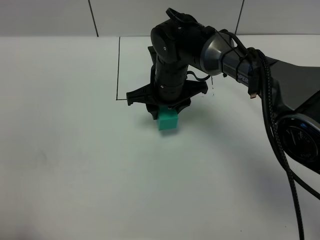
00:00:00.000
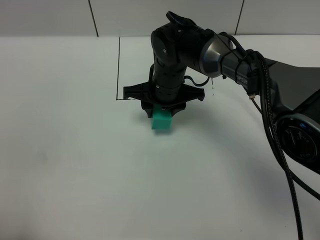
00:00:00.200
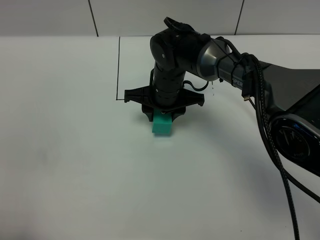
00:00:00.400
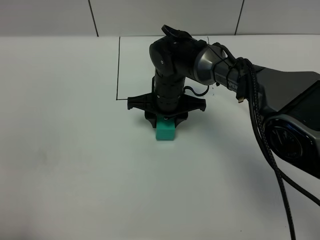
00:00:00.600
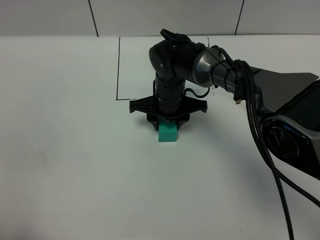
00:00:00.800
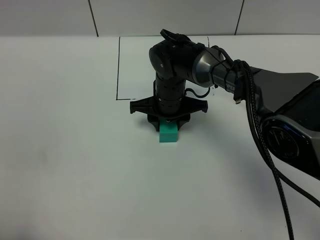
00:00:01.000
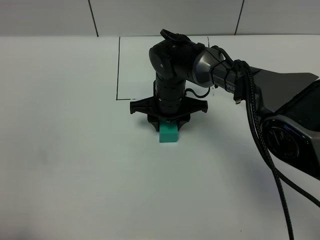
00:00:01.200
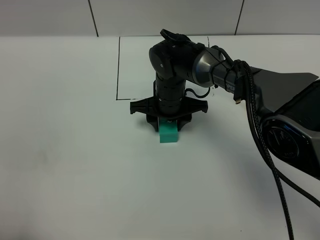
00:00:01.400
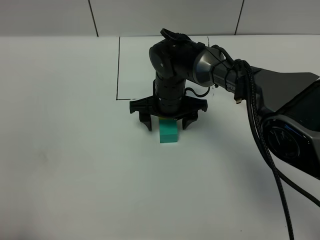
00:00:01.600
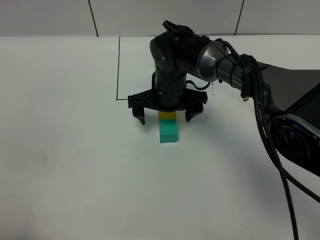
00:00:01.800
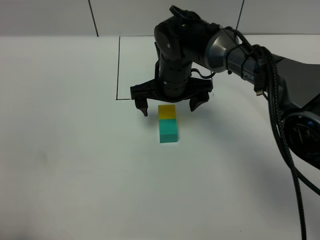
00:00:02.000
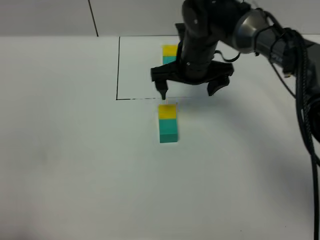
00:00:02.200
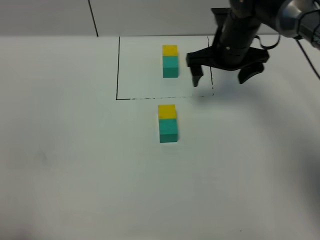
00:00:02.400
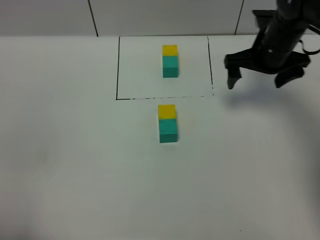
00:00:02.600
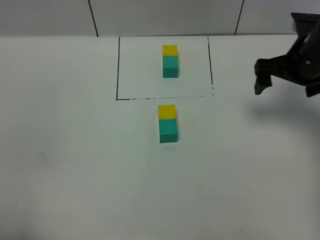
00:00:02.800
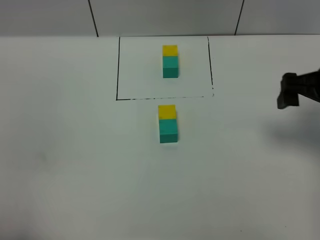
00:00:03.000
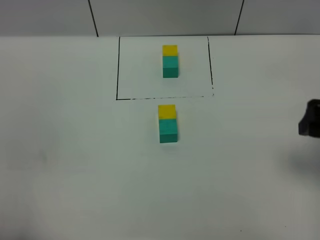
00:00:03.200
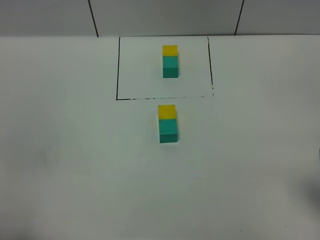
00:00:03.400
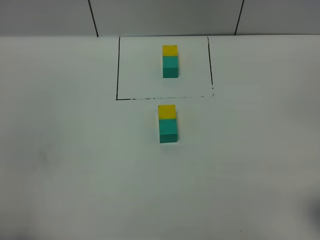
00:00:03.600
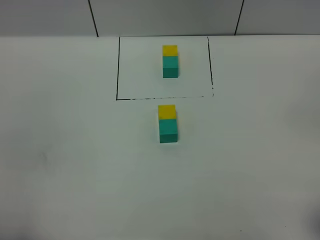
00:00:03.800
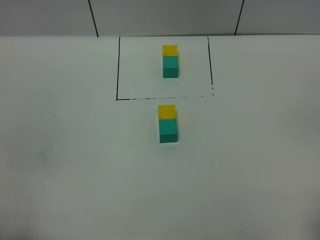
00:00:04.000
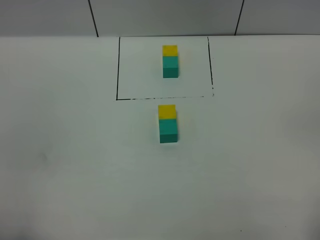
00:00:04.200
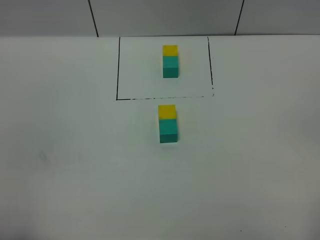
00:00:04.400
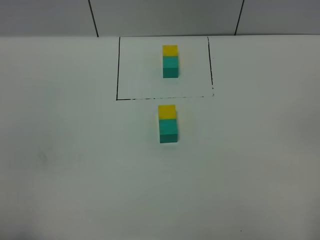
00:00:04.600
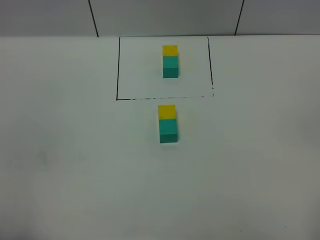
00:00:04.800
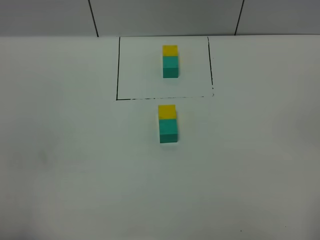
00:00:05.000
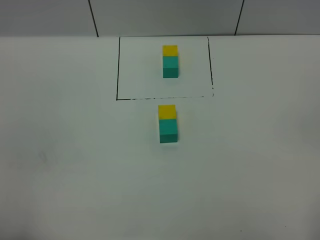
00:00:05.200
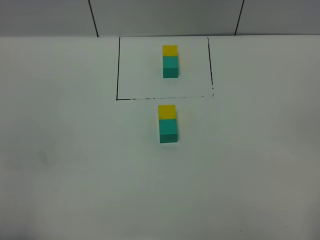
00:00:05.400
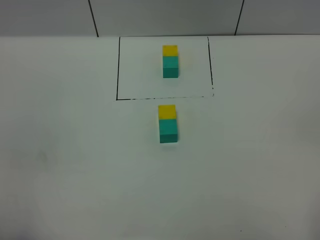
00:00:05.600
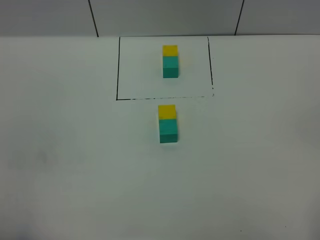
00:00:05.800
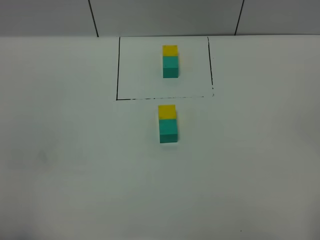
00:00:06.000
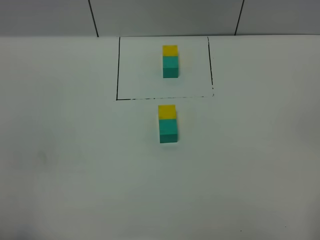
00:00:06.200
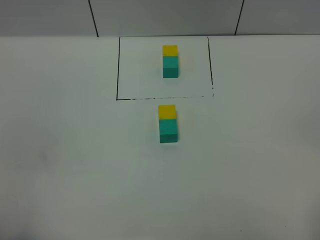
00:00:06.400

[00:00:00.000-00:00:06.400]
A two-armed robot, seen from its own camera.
Task of the whole recording: According to the building block template in front, assemble the scattered blocks together.
00:00:00.000 to 00:00:01.600: The right gripper opens.
00:00:01.600 to 00:00:03.200: The right gripper goes roughly 35 cm to the right, backward and upward, and opens its fingers.
00:00:03.200 to 00:00:04.800: The right gripper heads backward, covering about 20 cm.
00:00:04.800 to 00:00:06.400: Neither gripper changes place.
